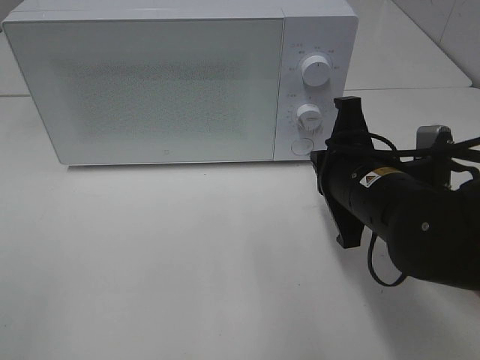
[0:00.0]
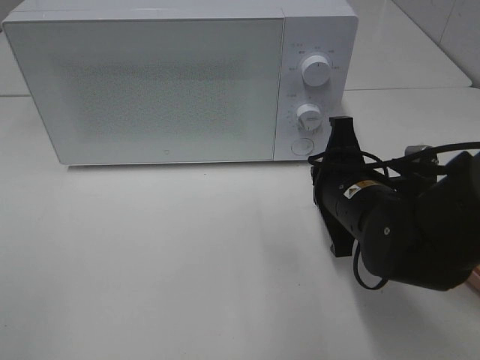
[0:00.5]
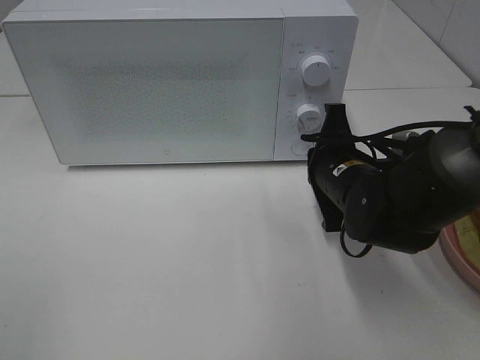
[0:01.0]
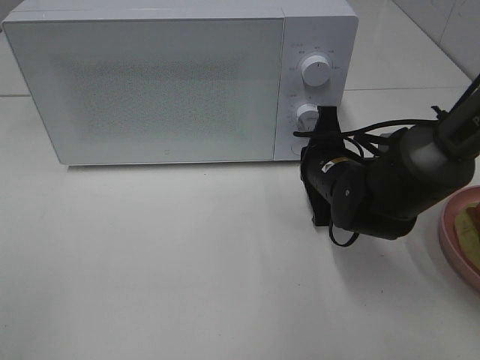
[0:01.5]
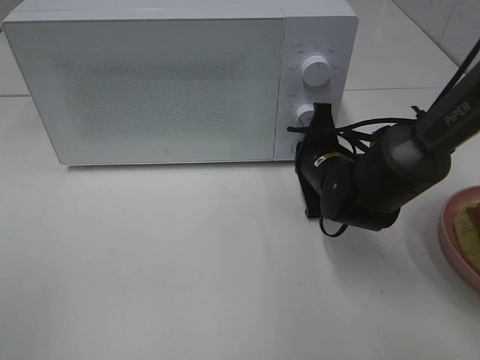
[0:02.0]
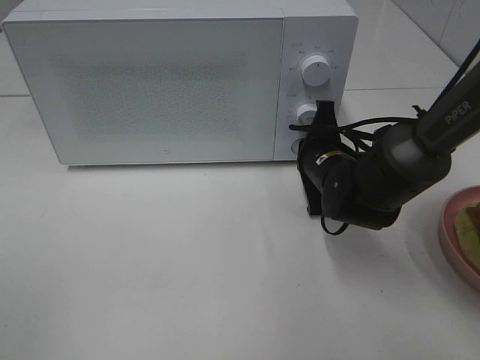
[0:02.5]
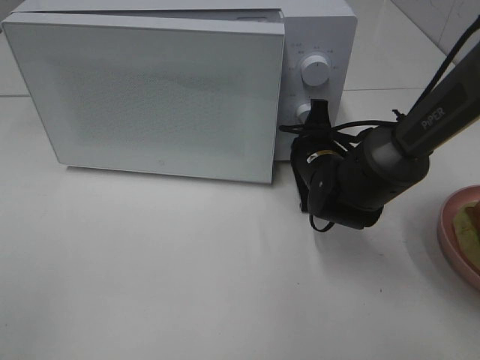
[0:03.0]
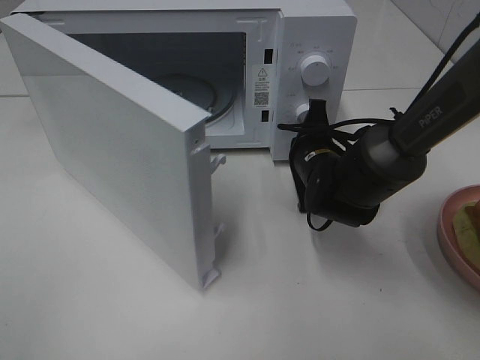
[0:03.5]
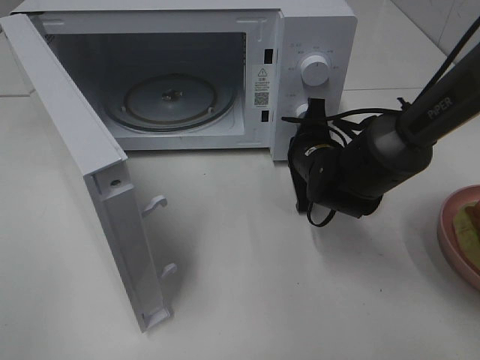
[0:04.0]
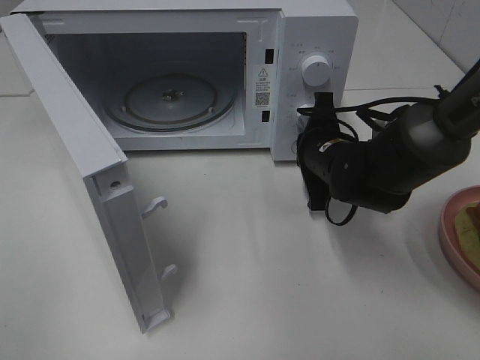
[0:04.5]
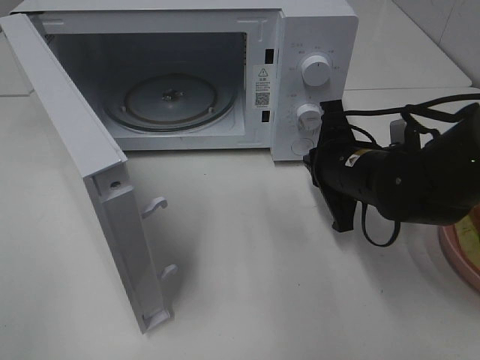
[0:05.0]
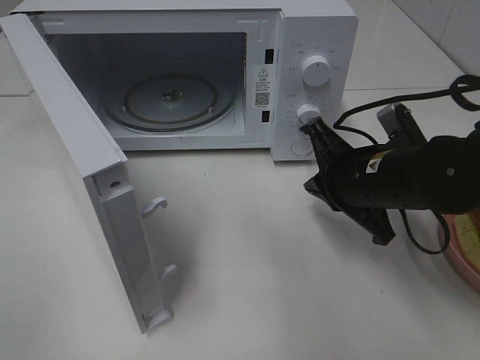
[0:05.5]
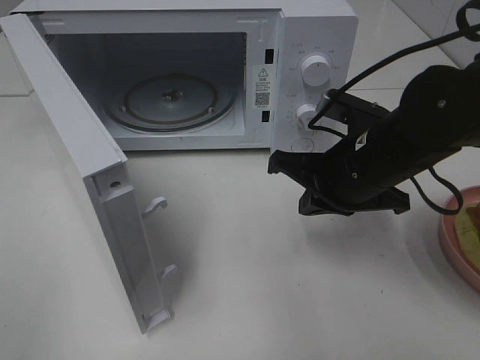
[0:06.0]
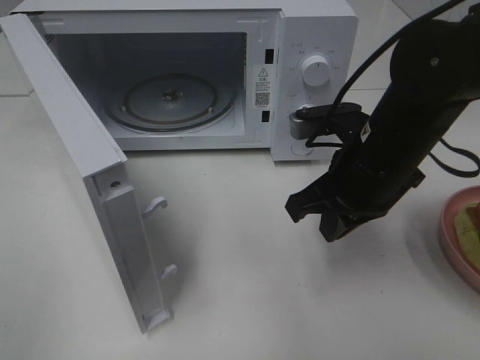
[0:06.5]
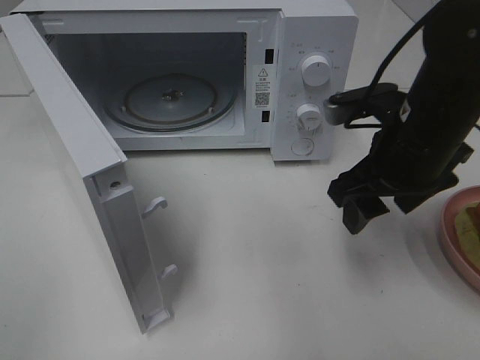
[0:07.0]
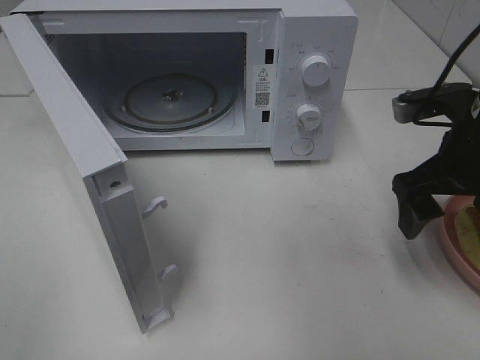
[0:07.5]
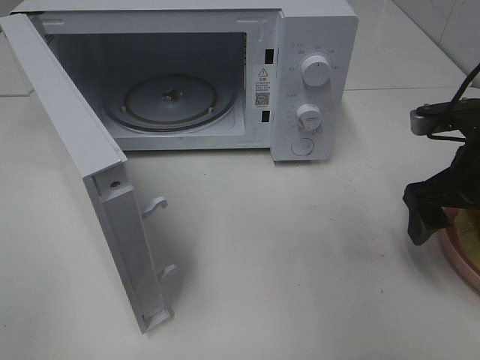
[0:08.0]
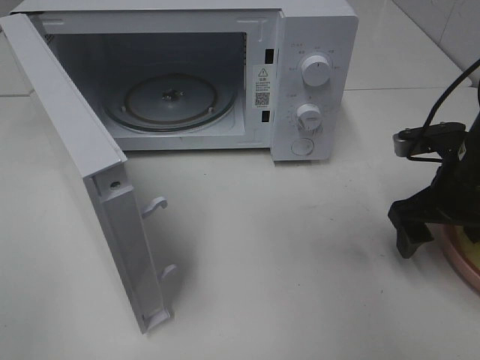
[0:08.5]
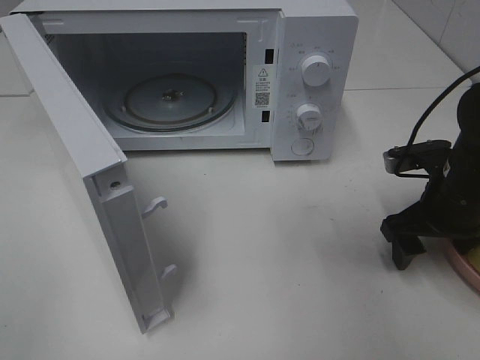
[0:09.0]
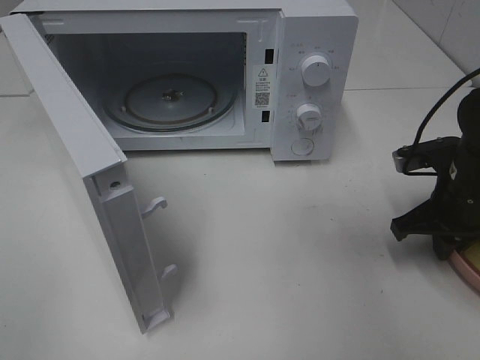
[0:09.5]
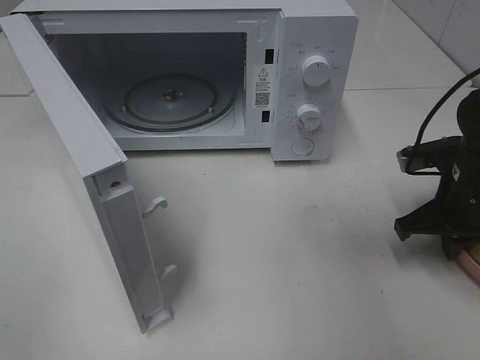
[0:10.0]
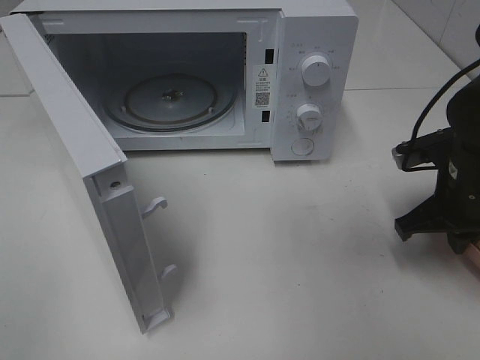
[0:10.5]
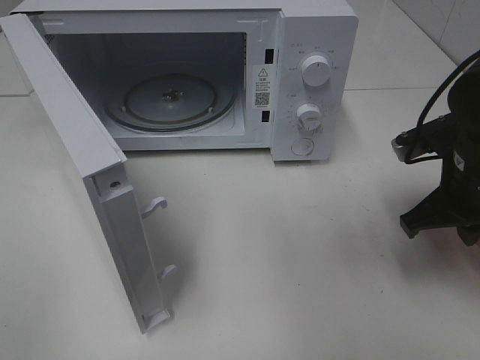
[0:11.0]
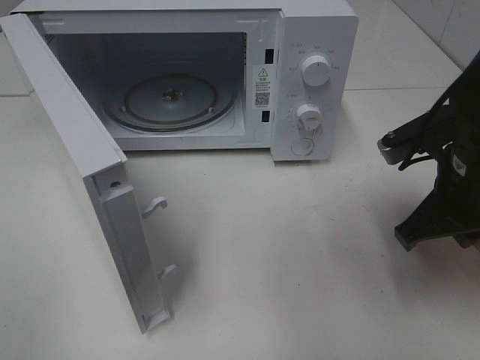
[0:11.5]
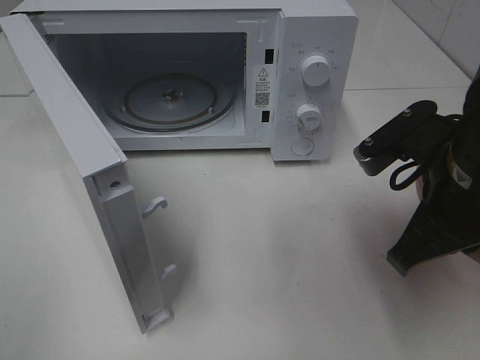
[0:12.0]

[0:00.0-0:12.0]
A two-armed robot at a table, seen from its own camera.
Task of the whole recording: Heat Sandwich.
Step, 0:00.0 to 0:04.5: Right hand: press the switch.
Step, 0:05.0 to 0:10.0: Right hand: grab the plate with the sandwich.
0:00.0 to 0:02.0: The right gripper is displaced forward and downward by some 15 cm.
0:04.0 to 0:06.0: The right gripper shifts roughly 10 cm backward and upward.
0:06.0 to 0:08.0: The right gripper goes some 10 cm to the right, and opens its fingers.
0:08.0 to 0:10.0: The right gripper moves downward, some 5 cm, and closes.
0:10.0 to 0:12.0: The right gripper shifts approximately 15 cm upward, to the left and backward.

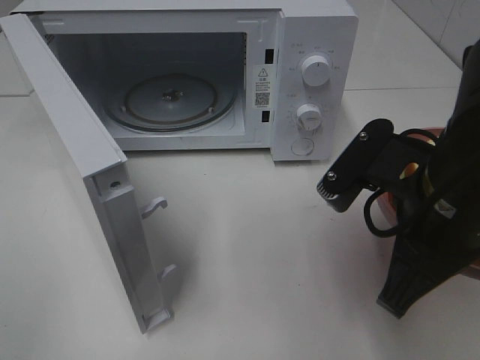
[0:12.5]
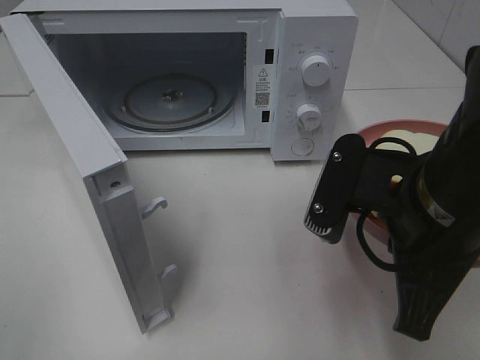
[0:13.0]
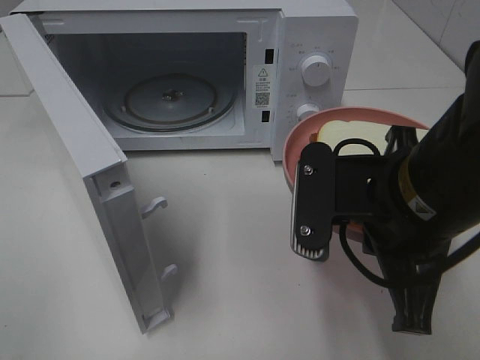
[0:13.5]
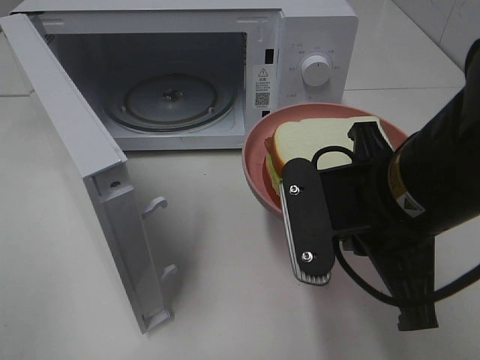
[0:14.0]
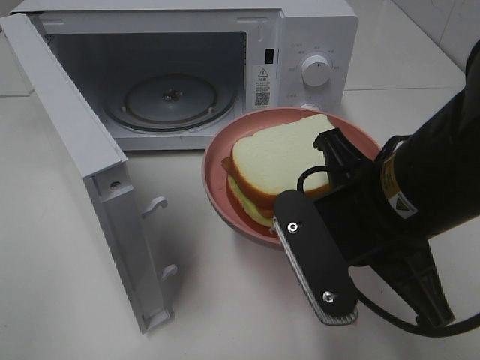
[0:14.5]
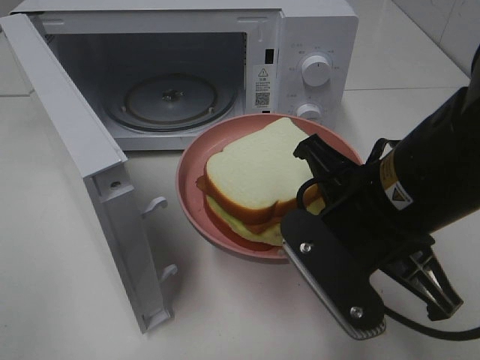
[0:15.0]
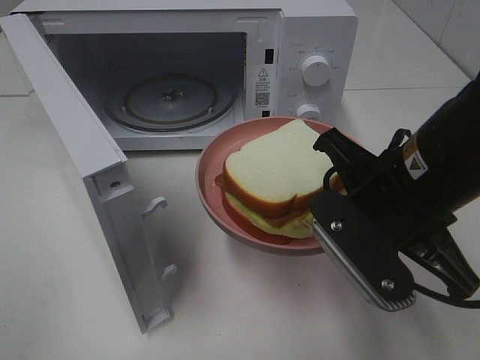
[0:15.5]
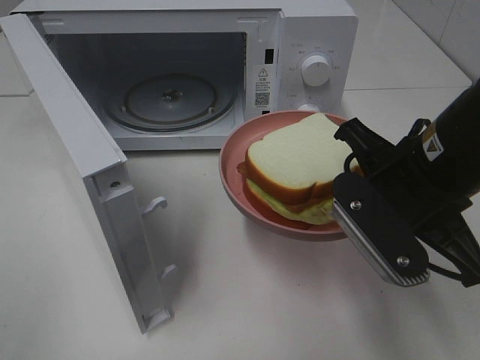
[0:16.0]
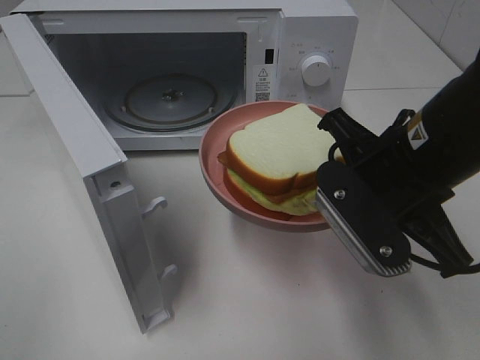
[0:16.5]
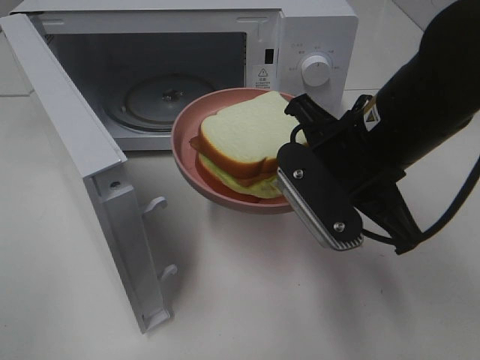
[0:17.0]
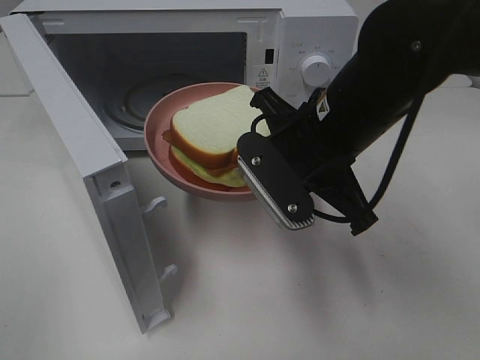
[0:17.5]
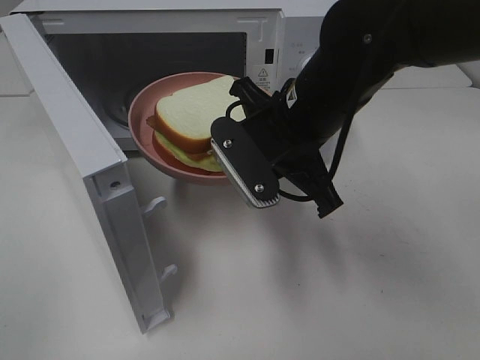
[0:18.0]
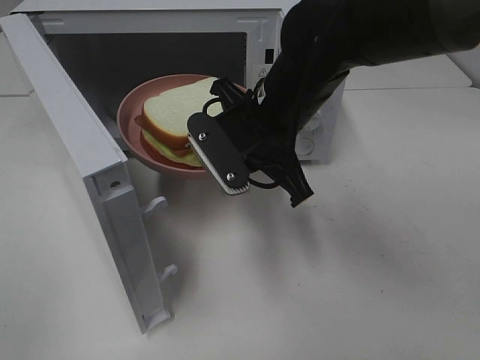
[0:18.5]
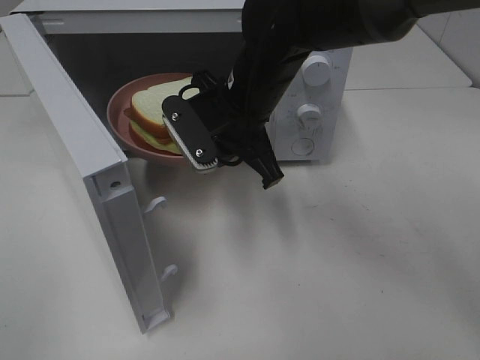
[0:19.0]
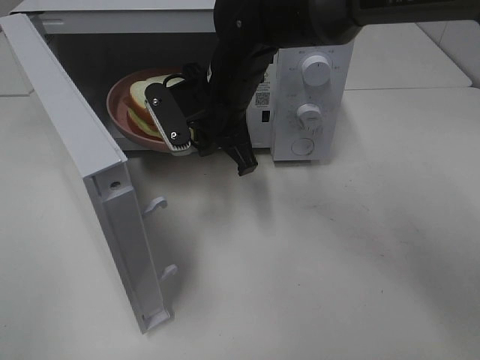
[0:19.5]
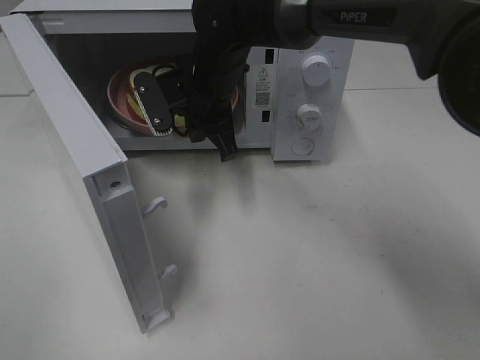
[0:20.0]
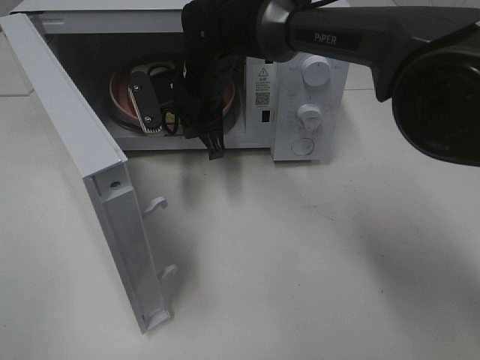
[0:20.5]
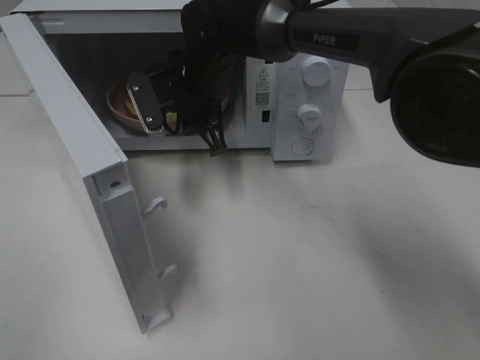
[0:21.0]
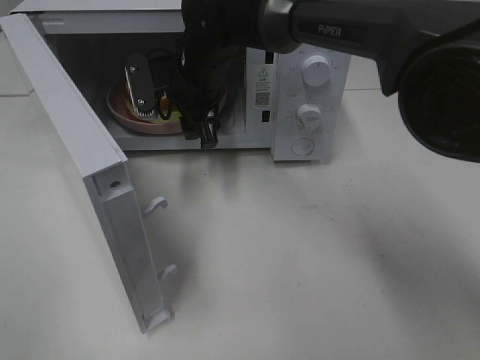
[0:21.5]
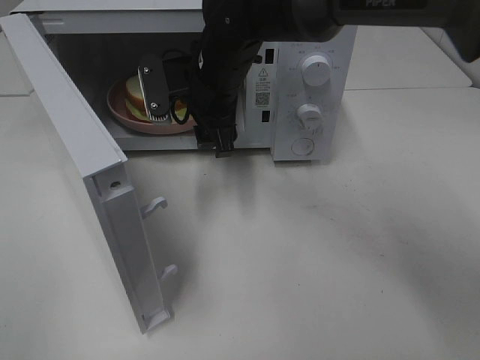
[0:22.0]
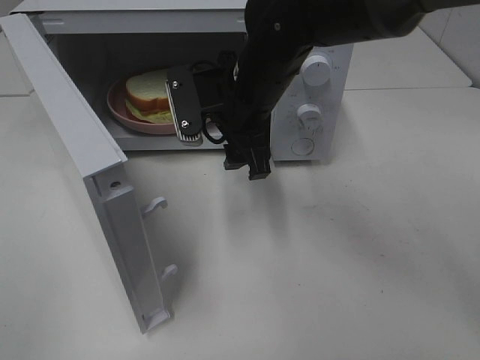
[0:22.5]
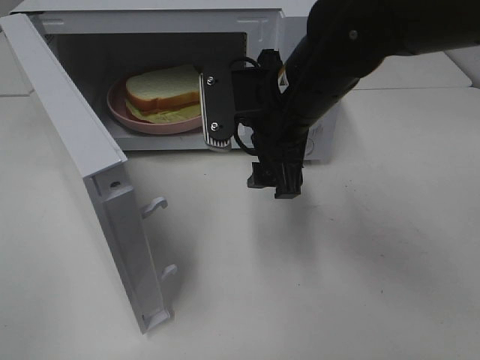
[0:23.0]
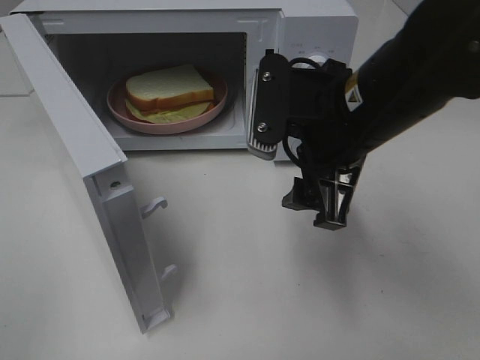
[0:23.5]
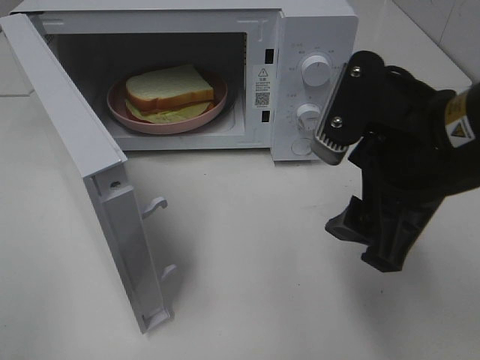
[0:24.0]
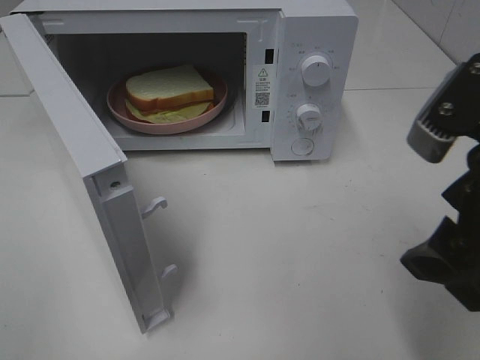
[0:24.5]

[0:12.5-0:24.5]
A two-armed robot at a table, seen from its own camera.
Task of the whole recording: Heat Sandwich.
Step, 0:12.5 to 0:22.0: Right hand: place the plate in the microwave.
0:14.5 to 0:16.5: The right gripper moves roughly 5 cm.
0:16.5 to 0:18.5: The right gripper shifts roughly 15 cm forward and to the left.
0:18.5 to 0:20.5: The right gripper travels forward and to the left by approximately 15 cm.
0:20.5 to 0:22.5: The right gripper goes some 10 cm backward and to the right, and opens.
0:22.5 to 0:24.5: The right gripper travels backward and to the right by roughly 25 cm.

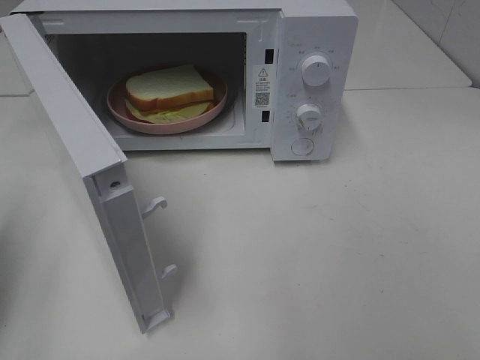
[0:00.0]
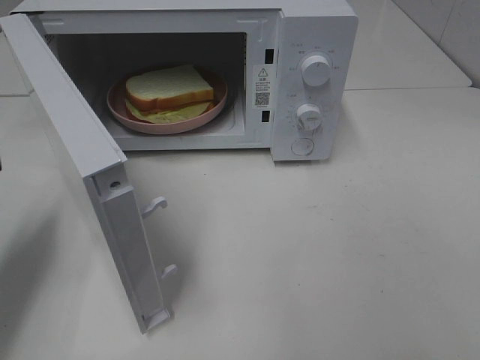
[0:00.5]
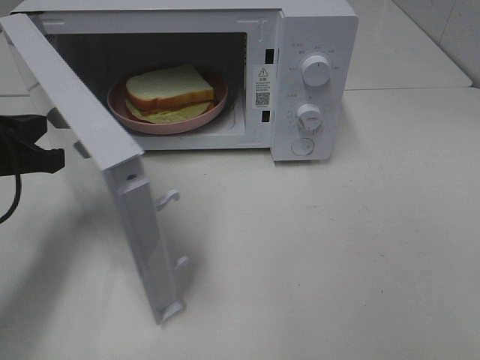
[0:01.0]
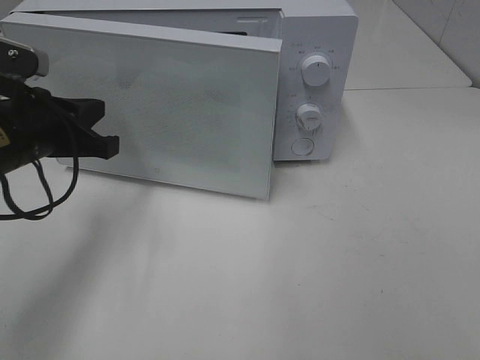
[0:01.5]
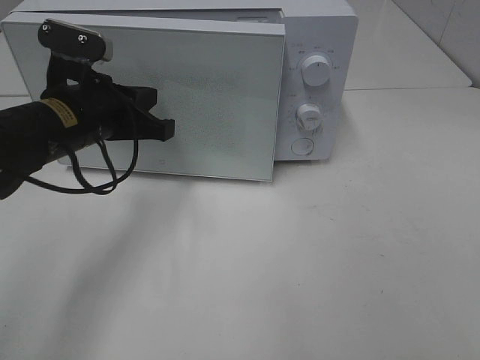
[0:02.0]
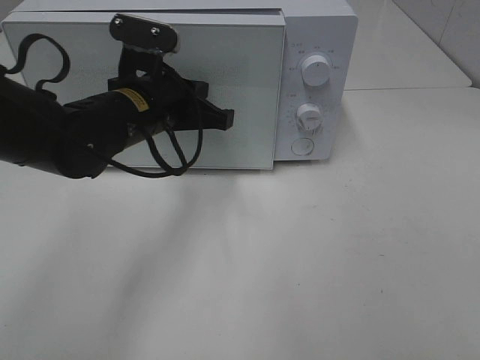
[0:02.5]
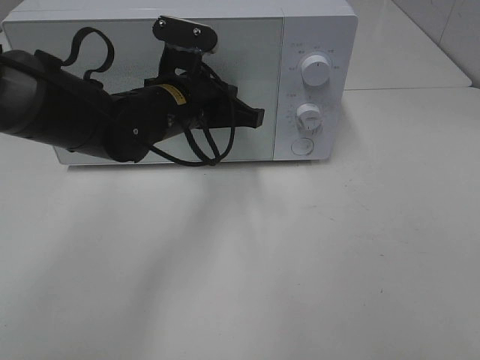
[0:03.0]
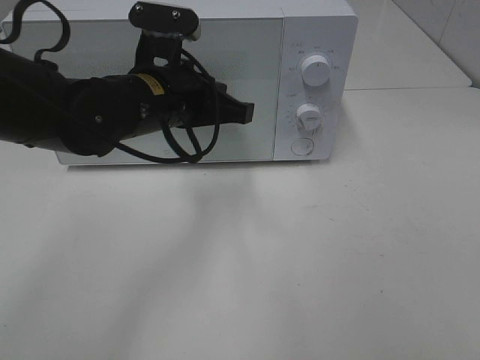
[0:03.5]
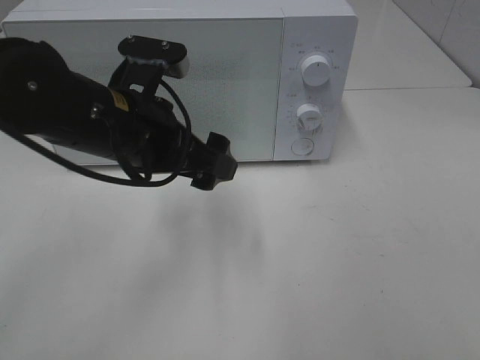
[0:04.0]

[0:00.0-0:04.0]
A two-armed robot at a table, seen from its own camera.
Task of the whole recording: Heat Sandwich.
Step, 0:00.0 to 0:03.0: Left hand: close the microwave door.
0:00.0 to 0:02.0: The left gripper is displaced to the right and forward by approximately 25 cm.
0:02.0 to 0:04.0: The left gripper moves to the right, about 5 cm, and opens its fingers.
